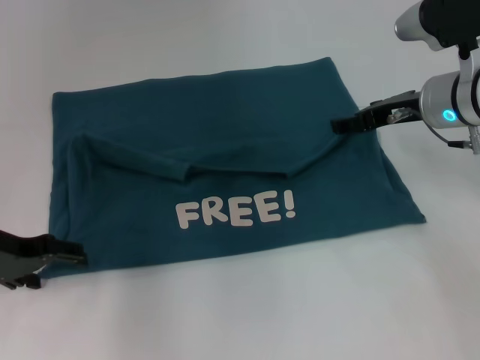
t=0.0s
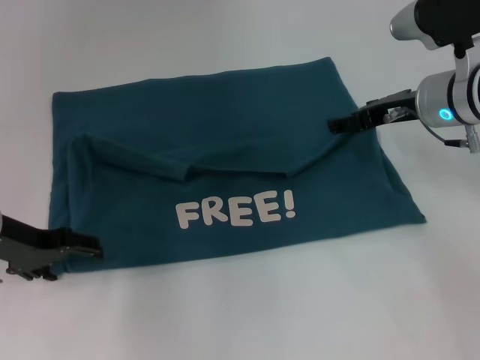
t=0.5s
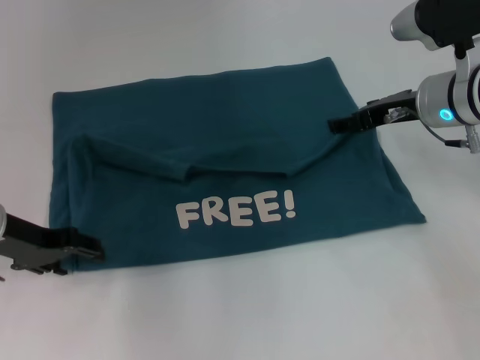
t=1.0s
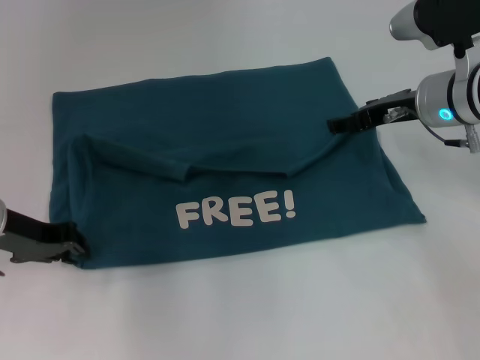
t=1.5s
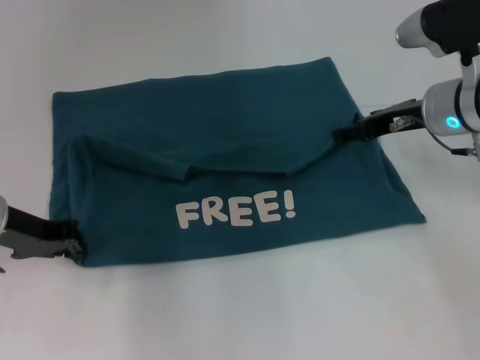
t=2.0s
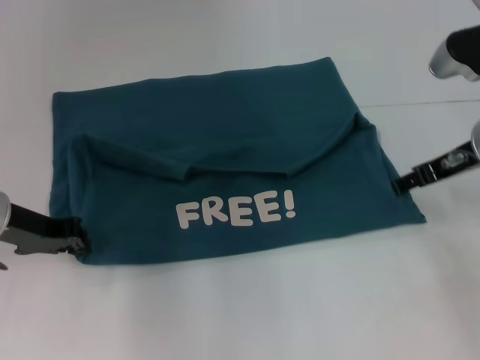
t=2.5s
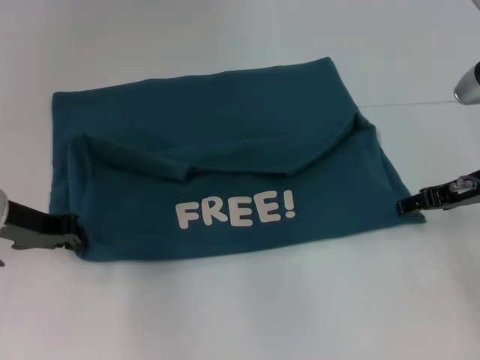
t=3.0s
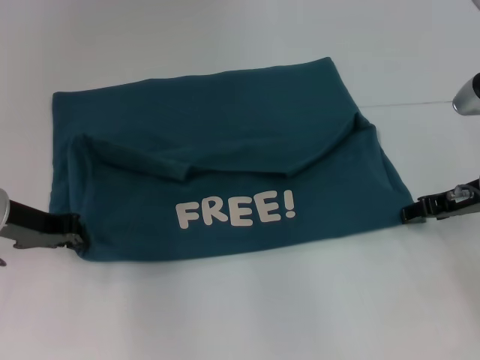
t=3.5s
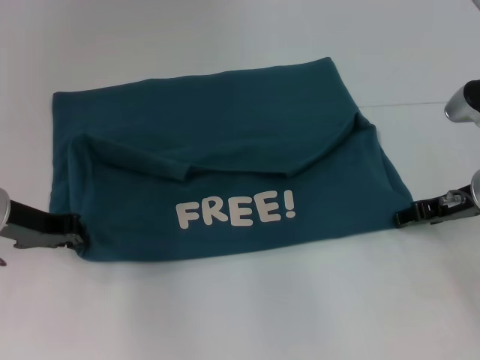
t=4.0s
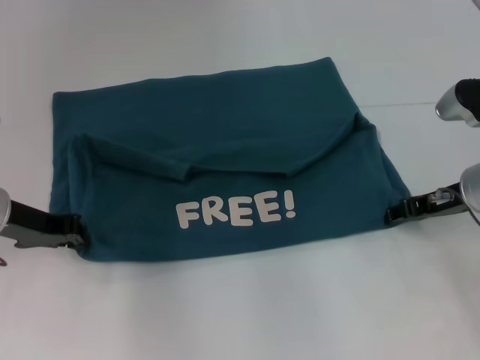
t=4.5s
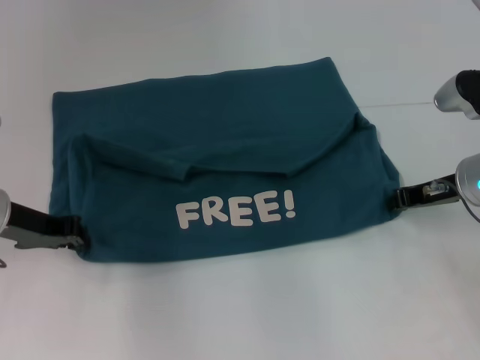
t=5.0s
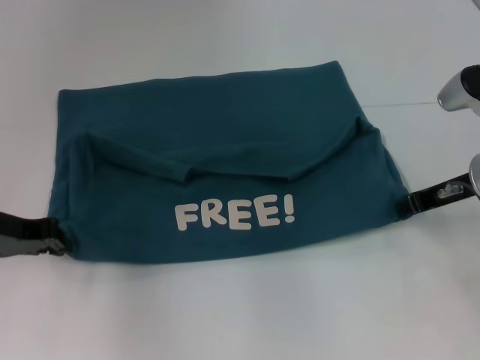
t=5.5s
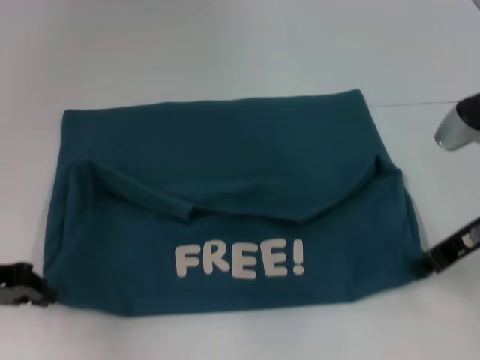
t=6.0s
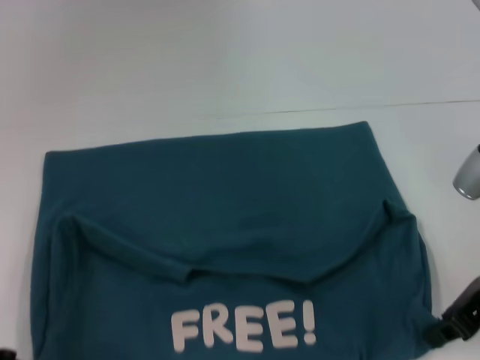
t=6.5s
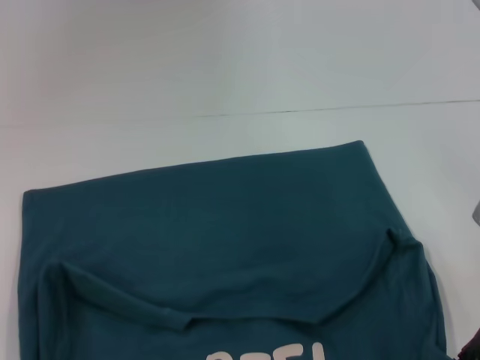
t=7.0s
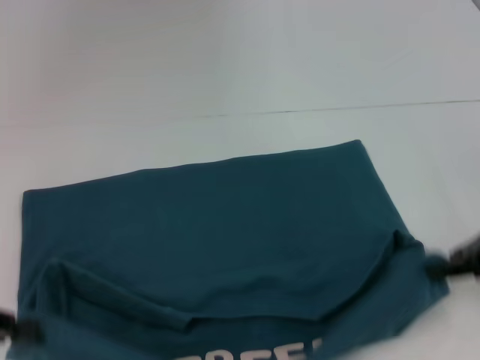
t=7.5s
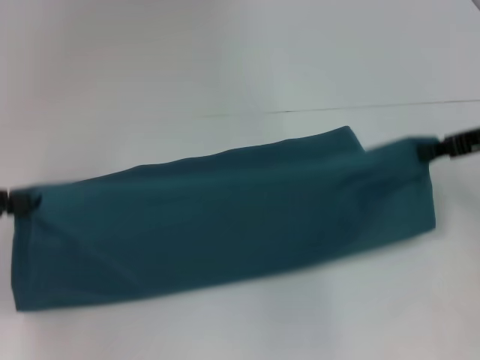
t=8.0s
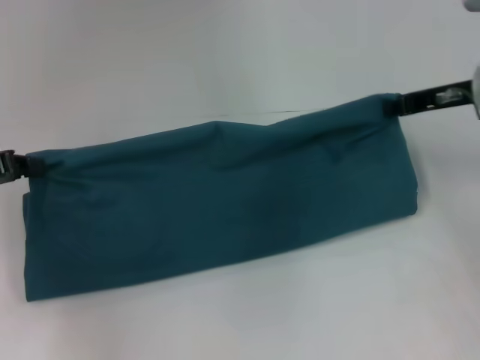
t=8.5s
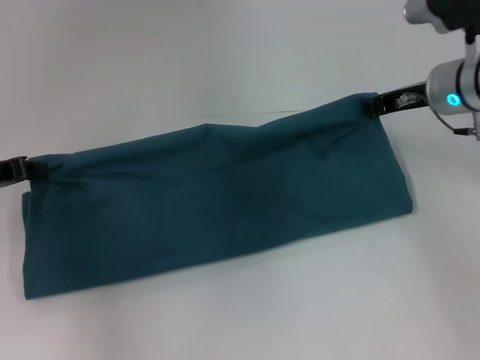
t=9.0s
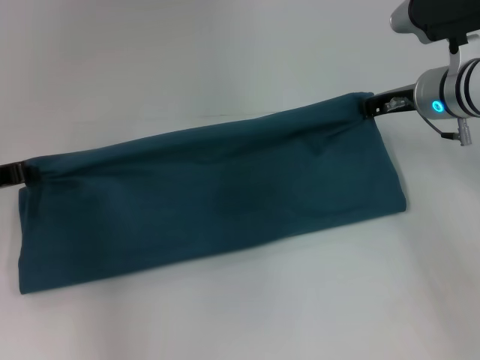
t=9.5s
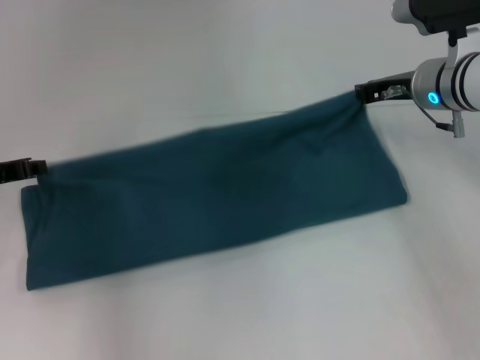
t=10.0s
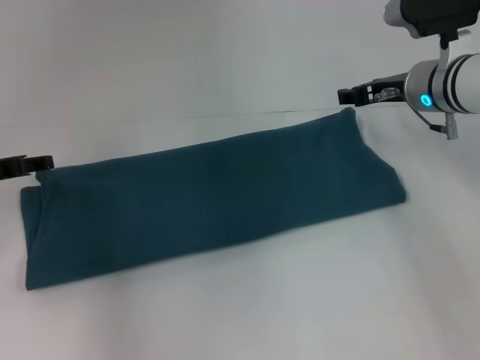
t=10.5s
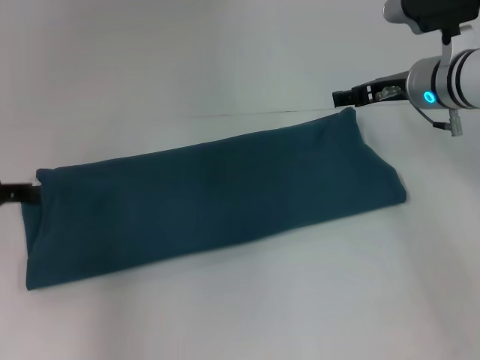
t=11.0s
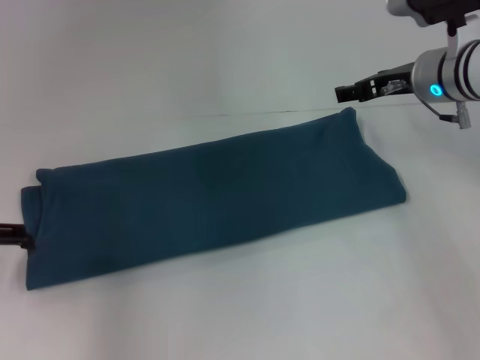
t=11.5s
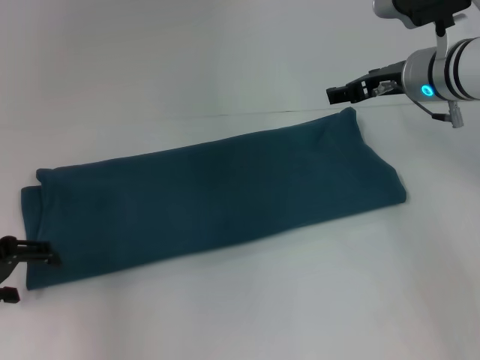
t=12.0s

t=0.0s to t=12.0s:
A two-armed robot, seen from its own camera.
Step, t=0.0s to t=6.0s: Pull the clothes with your left hand.
Step, t=0.0s to t=6.0s: Pull the clothes with your right hand.
Step, t=6.5s to t=10.0s: Fold the clothes to the left.
Step, t=6.5s to t=10.0s: Fold the clothes to the right.
t=0.0s to t=2.0s: The left gripper closes its fingers.
t=2.0s to t=4.0s: The right gripper heads downward, covering about 5 cm.
t=4.0s to t=6.0s: The right gripper closes; the left gripper shifts some 5 cm backward and to the left.
t=6.0s to t=8.0s: The left gripper moves approximately 10 cm backward and comes back, while the right gripper moves upward, approximately 5 cm, and travels backward and back again, approximately 5 cm each way.
t=8.0s to t=10.0s: The right gripper is displaced to the left and forward by about 10 cm. Meanwhile the left gripper travels forward and downward by roughly 10 cm.
t=10.0s to t=12.0s: The left gripper moves backward, roughly 5 cm, and opens its fingers. The right gripper opens its fingers.

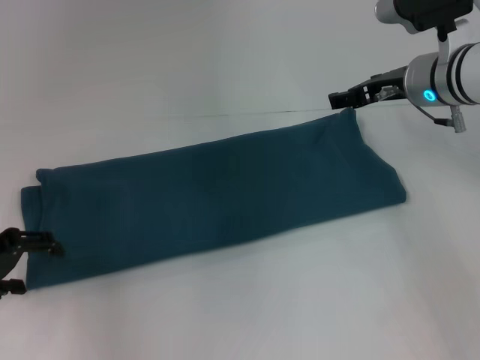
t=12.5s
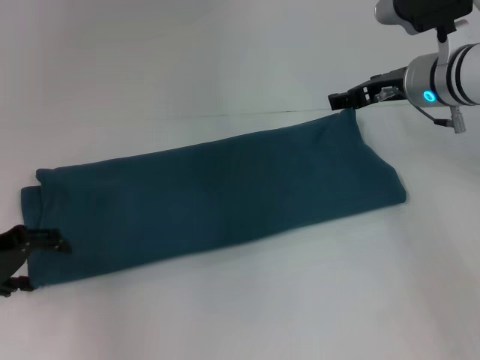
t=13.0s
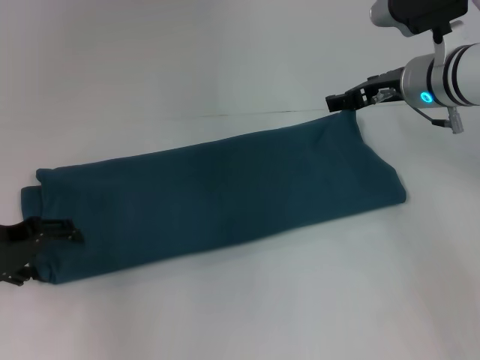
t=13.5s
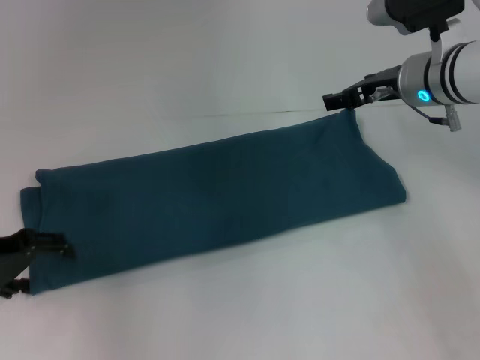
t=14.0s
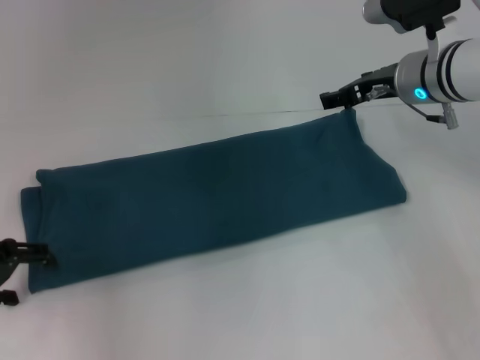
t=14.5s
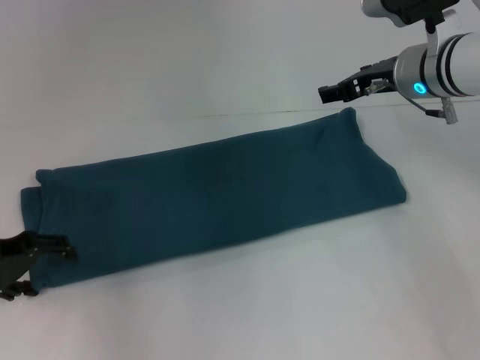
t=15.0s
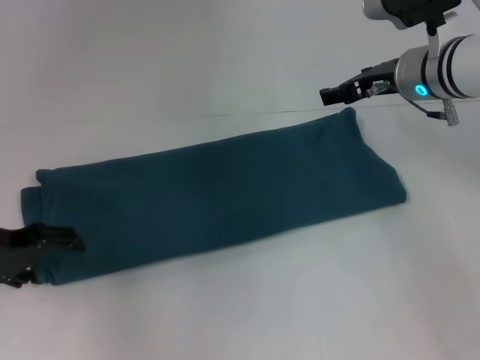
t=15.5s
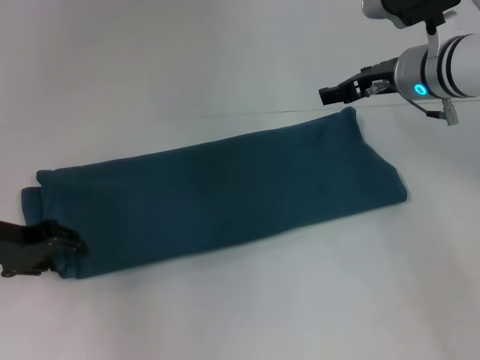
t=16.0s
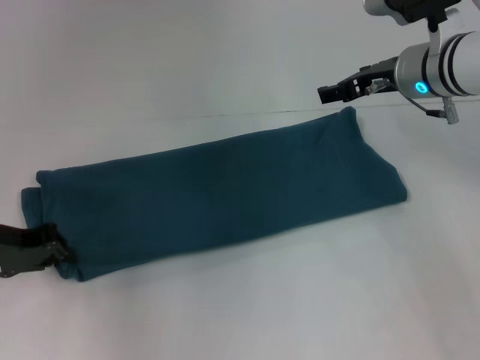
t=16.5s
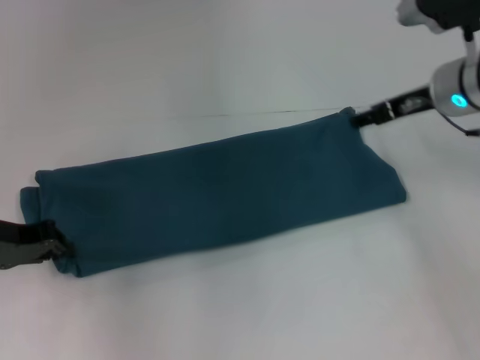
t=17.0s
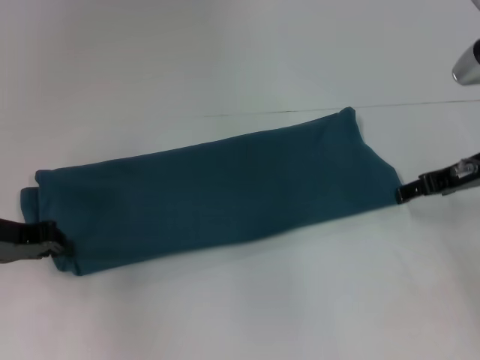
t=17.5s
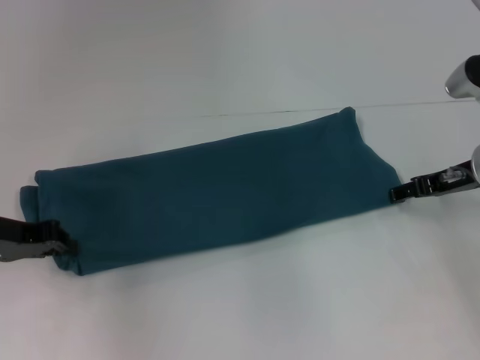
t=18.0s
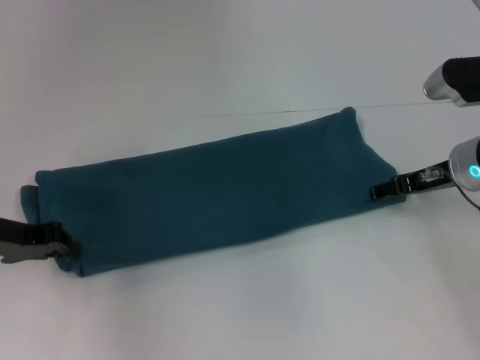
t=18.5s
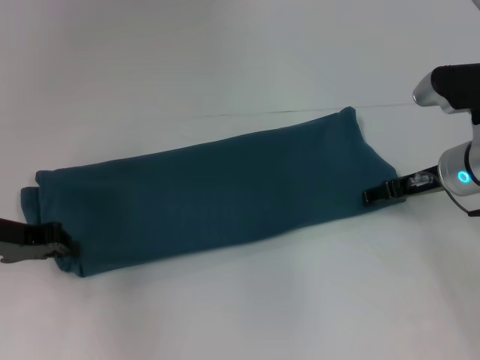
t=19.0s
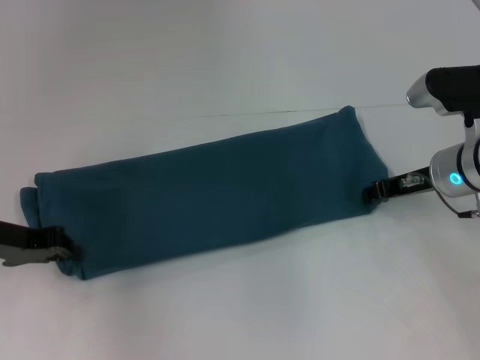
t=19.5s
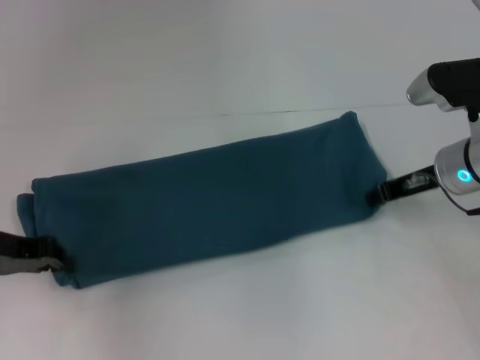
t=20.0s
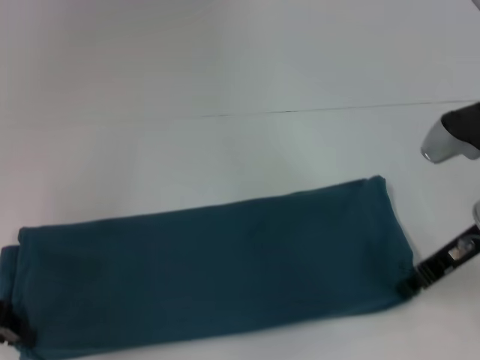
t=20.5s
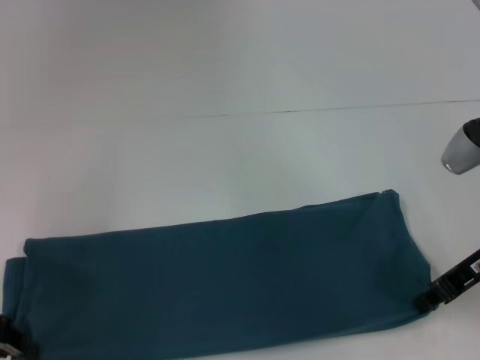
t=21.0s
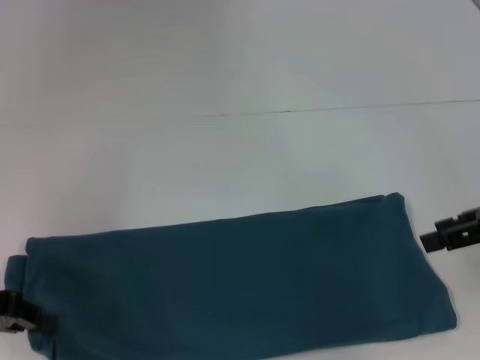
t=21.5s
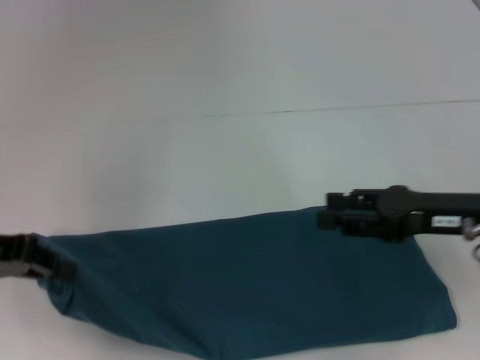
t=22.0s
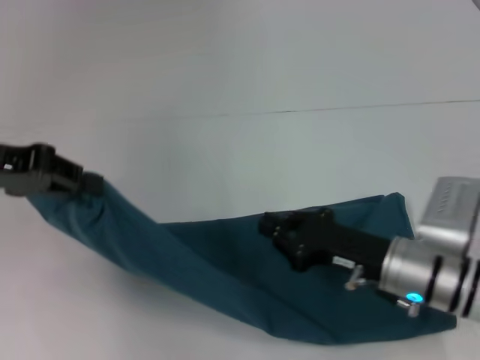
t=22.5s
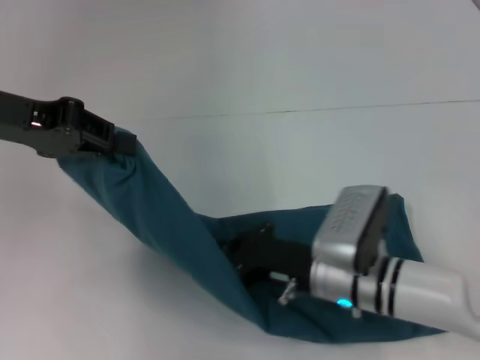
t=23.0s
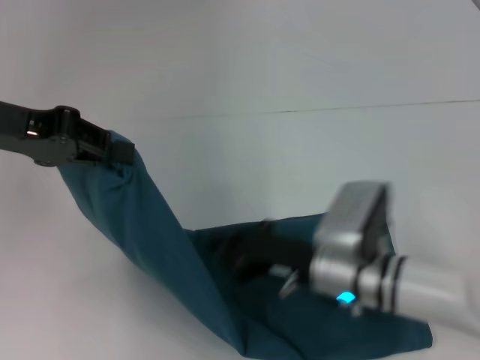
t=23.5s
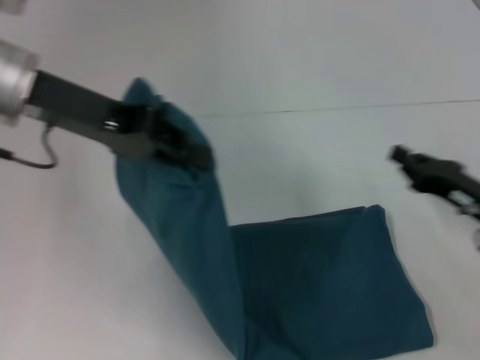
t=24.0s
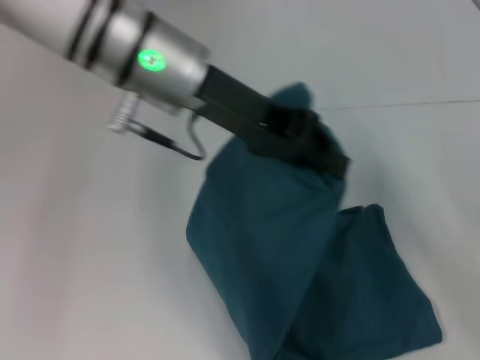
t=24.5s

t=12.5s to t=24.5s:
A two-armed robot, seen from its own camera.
Step, t=12.5s to t=21.0s: Pull the clothes with your left hand.
Step, t=12.5s to t=21.0s: Pull the clothes with your right hand.
t=12.5s to t=14.5s: The grippers make only small movements.
t=14.5s to t=16.5s: The left gripper closes up.
t=16.5s to t=18.5s: The right gripper travels downward, to the right and backward by some 10 cm.
t=18.5s to t=20.5s: The two grippers go about 5 cm backward. The right gripper closes.
t=20.5s to t=22.5s: The left gripper heads upward and forward, covering some 10 cm. Meanwhile the right gripper shifts about 10 cm downward and to the left, and opens, then closes again.
t=22.5s to t=24.5s: The two grippers go approximately 20 cm to the right.

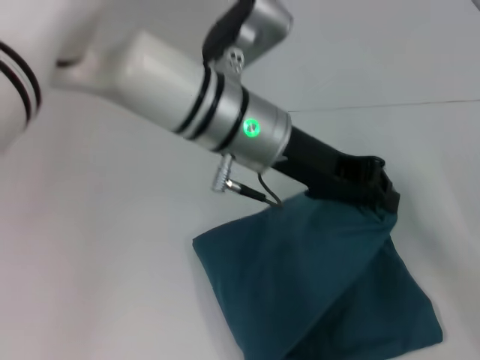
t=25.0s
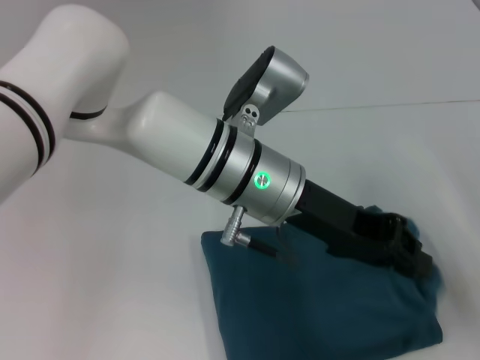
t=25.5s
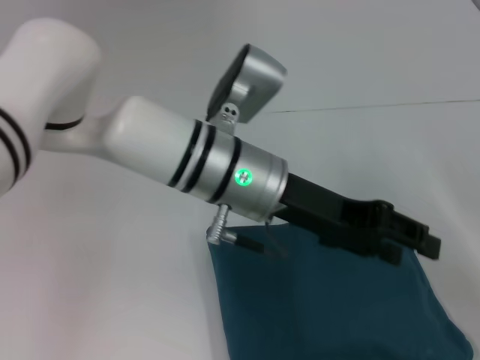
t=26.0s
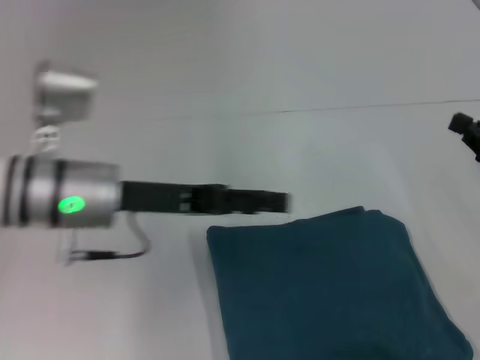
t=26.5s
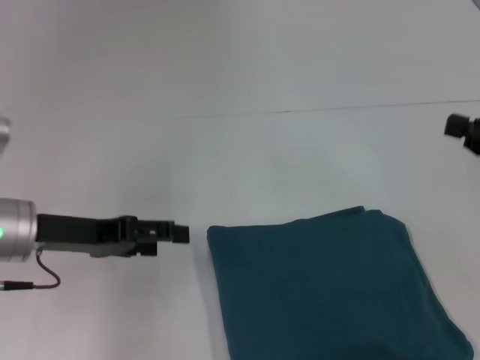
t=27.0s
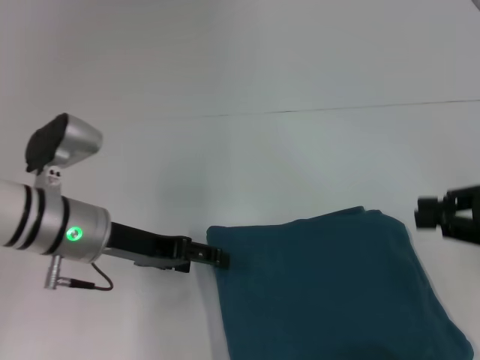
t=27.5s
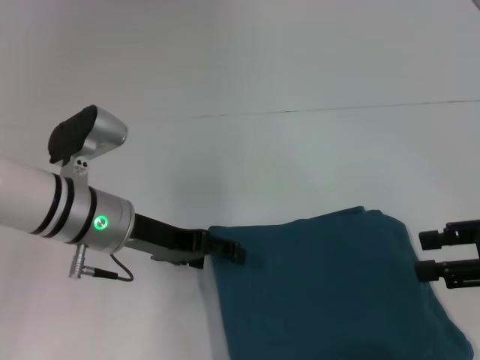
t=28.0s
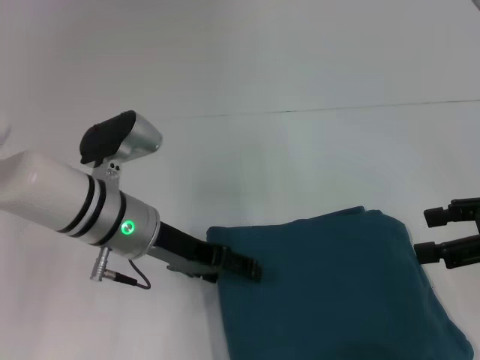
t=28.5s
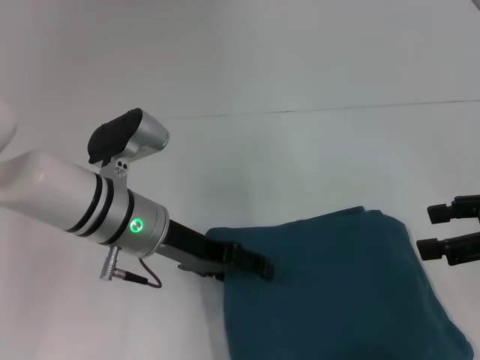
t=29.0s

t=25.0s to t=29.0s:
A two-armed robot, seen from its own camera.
t=25.0s to t=27.0s: The left gripper goes some 20 cm to the left, and opens its fingers. The right gripper goes about 10 cm upward.
t=27.0s to t=29.0s: The left gripper goes about 10 cm to the right. The right gripper opens up.
